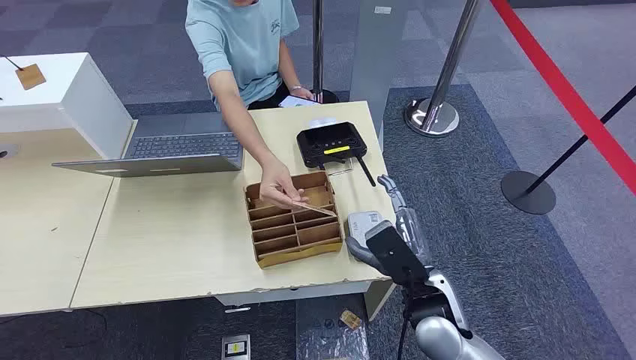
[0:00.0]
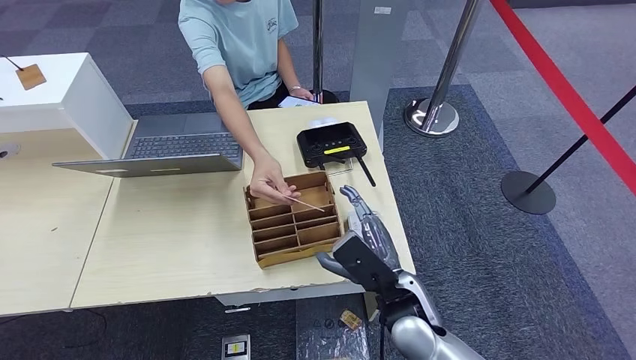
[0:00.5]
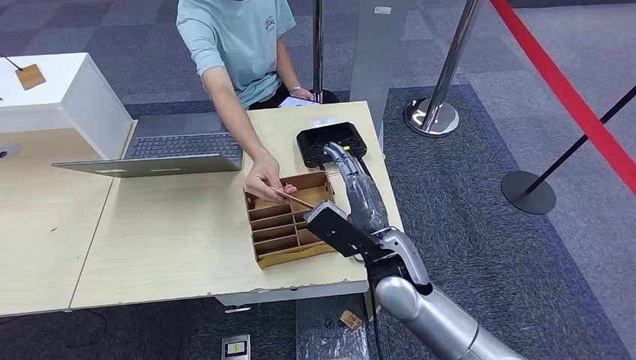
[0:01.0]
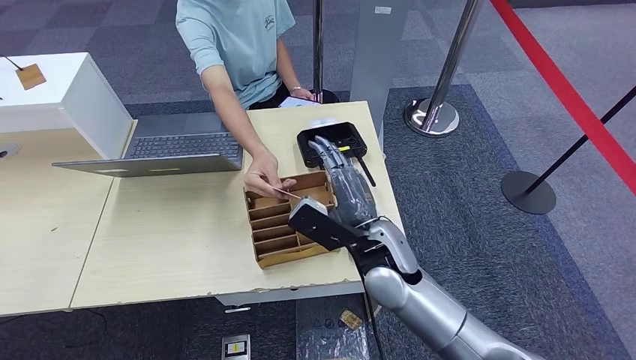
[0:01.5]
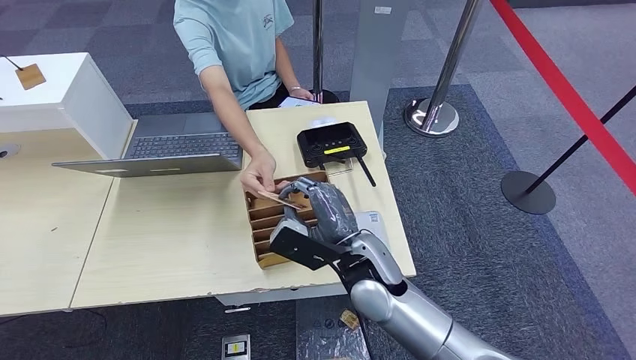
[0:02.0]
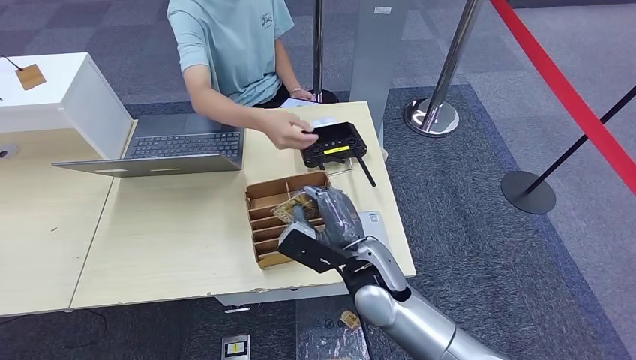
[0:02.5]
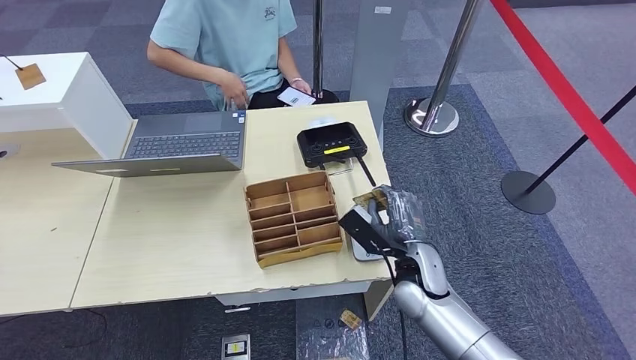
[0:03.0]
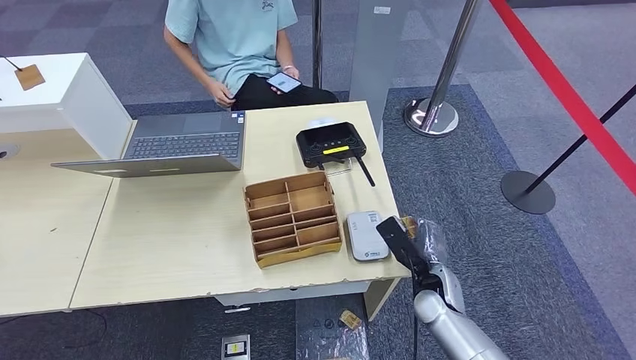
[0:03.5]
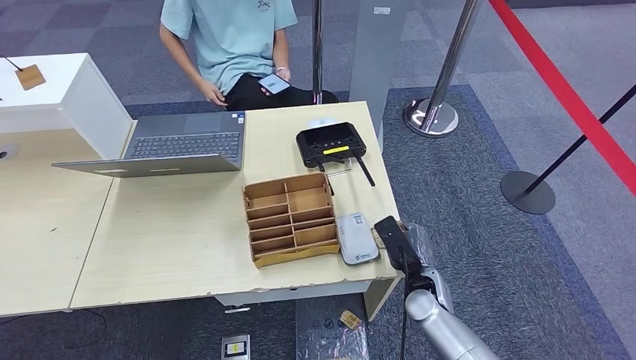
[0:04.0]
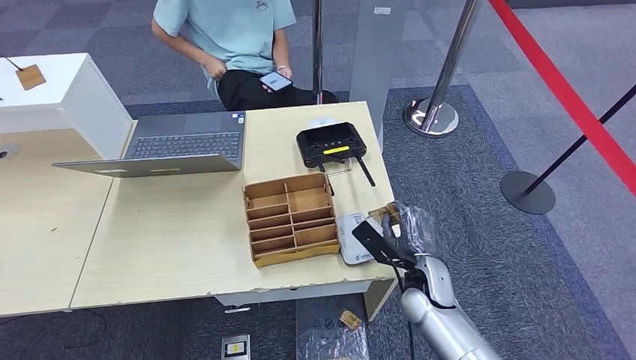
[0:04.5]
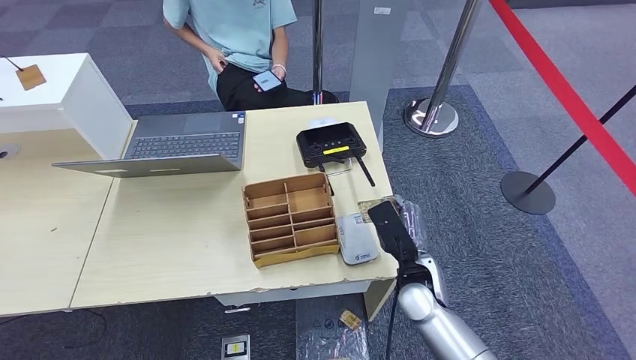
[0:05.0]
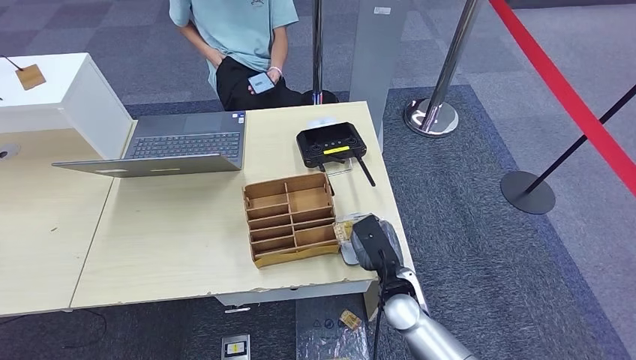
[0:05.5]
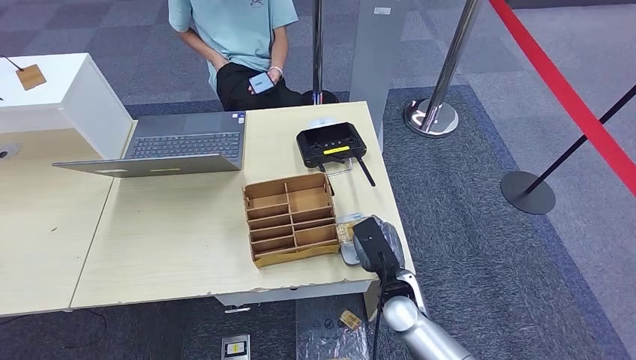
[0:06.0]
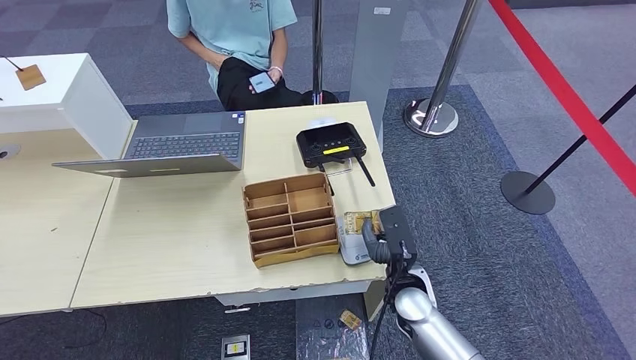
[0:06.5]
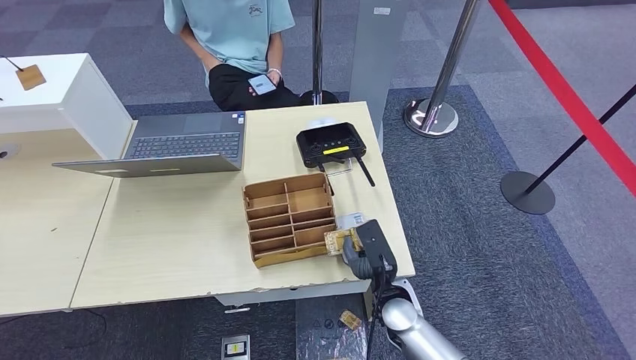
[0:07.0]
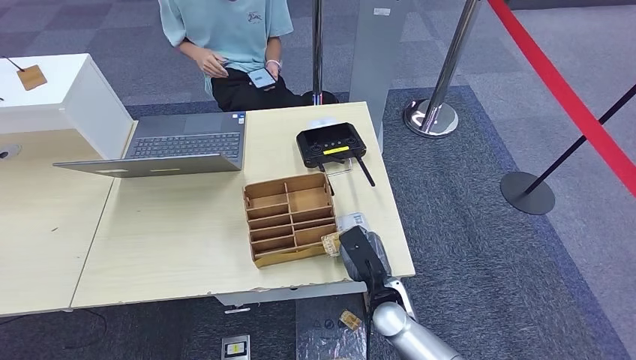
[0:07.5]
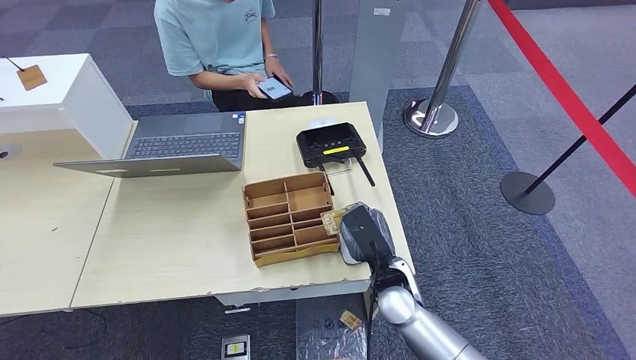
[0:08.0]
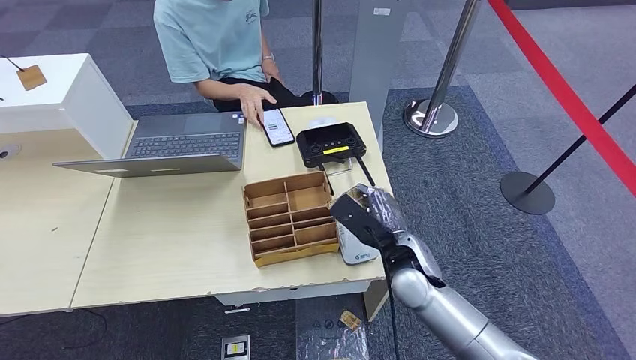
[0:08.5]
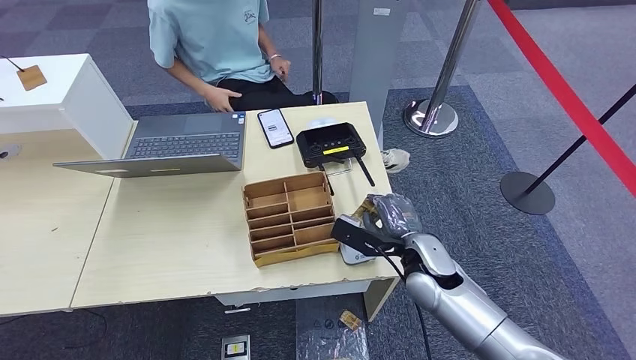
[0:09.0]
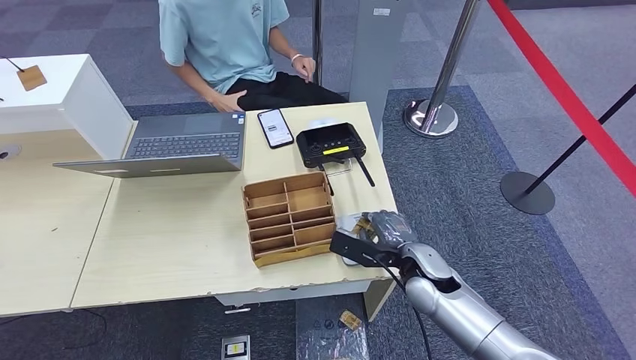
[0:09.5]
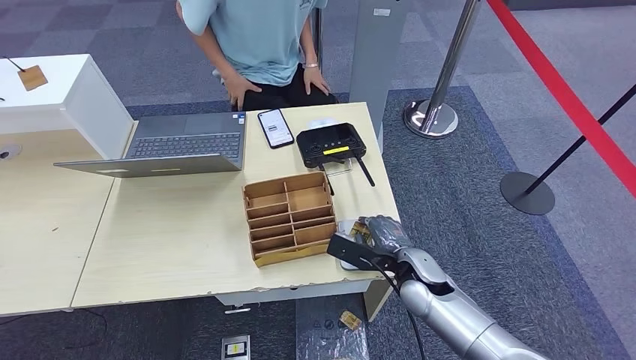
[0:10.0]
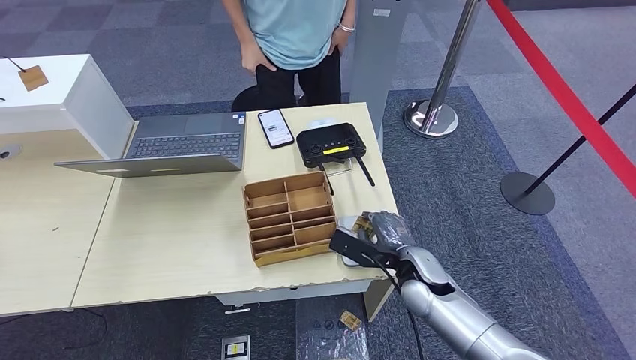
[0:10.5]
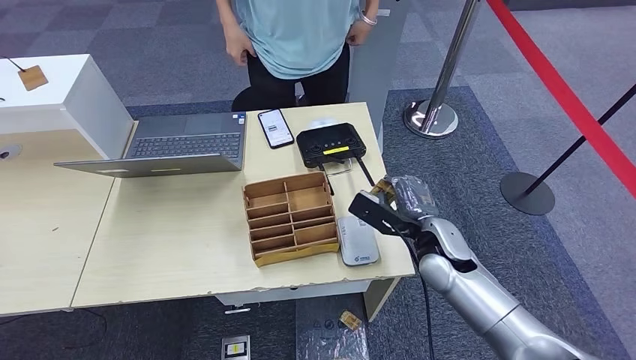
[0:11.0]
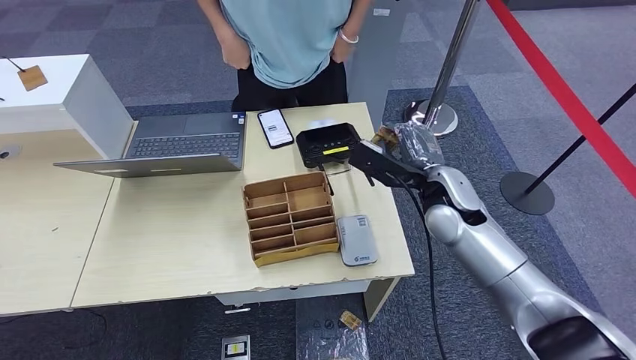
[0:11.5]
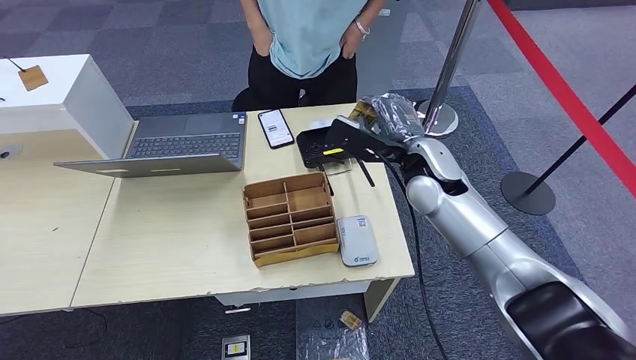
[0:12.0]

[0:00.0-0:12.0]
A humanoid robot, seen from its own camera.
Step, 0:00.0 to 0:02.5: Take the ID card from the person's hand.
Step, 0:03.0 to 0:10.0: Place the ID card on the card reader.
0:02.0 to 0:04.0: The right hand goes some 20 cm downward and to the right.
0:04.0 to 0:06.0: The right hand moves to the left, some 5 cm.
0:06.0 to 0:08.0: The hands move only a little.
0:08.0 to 0:10.0: The right hand shifts some 5 cm to the right.

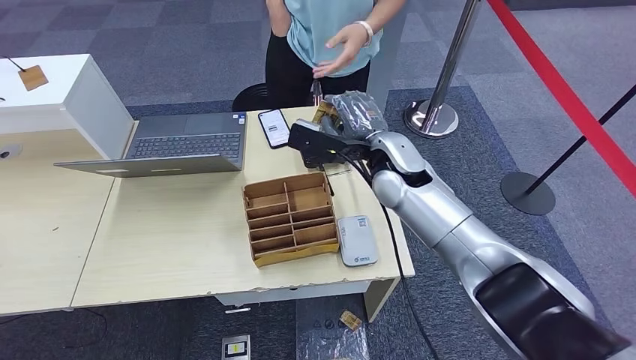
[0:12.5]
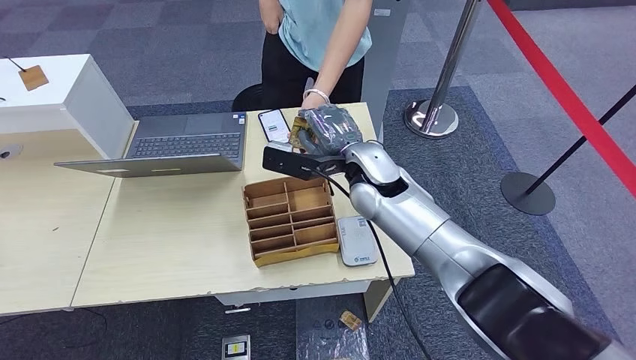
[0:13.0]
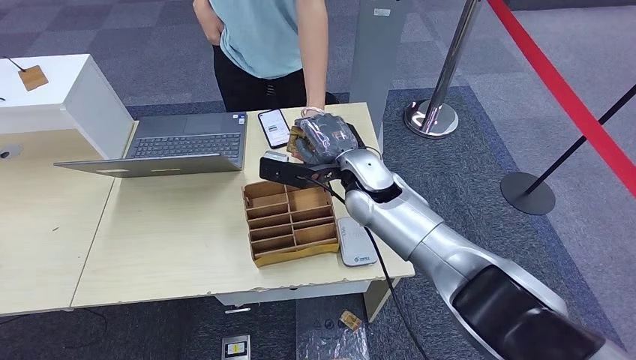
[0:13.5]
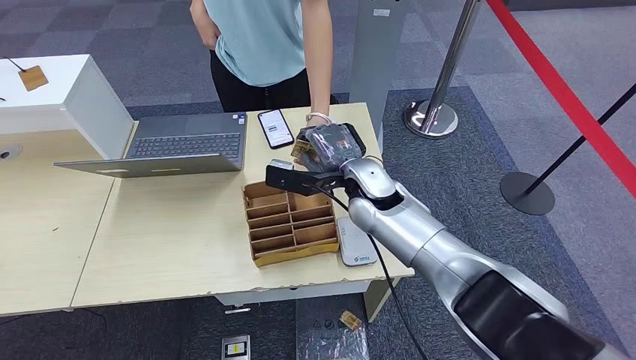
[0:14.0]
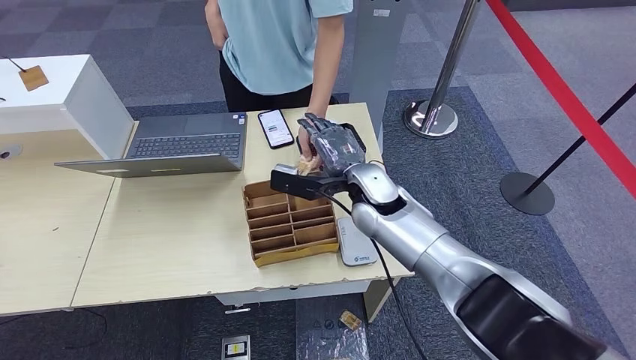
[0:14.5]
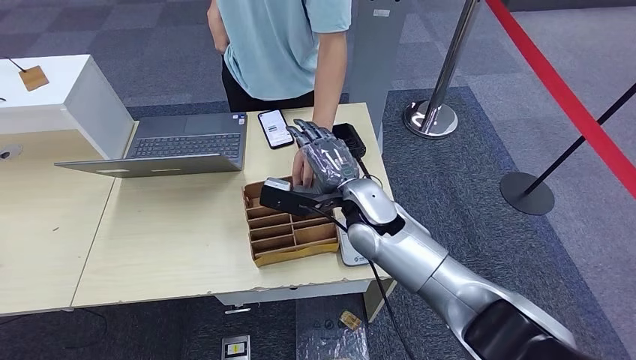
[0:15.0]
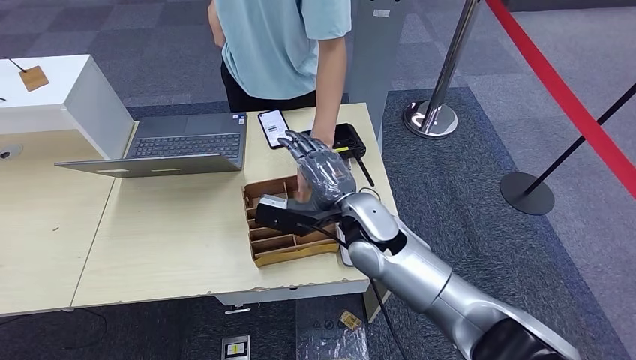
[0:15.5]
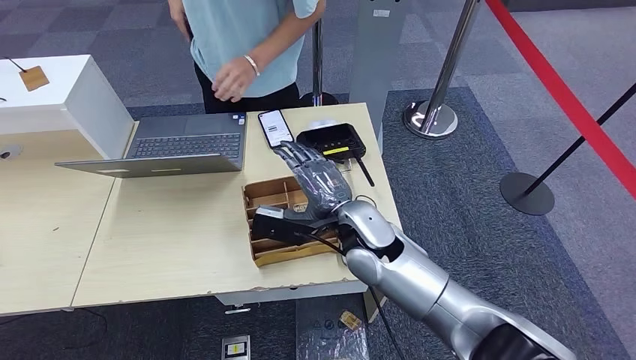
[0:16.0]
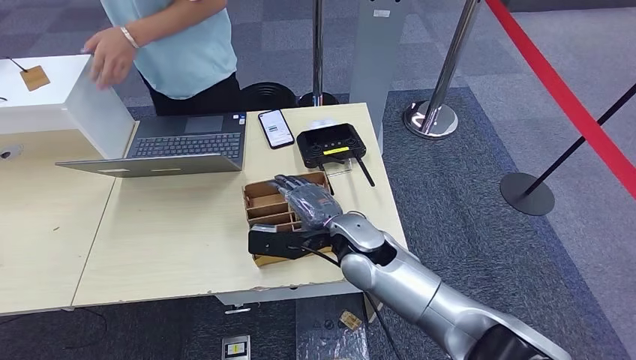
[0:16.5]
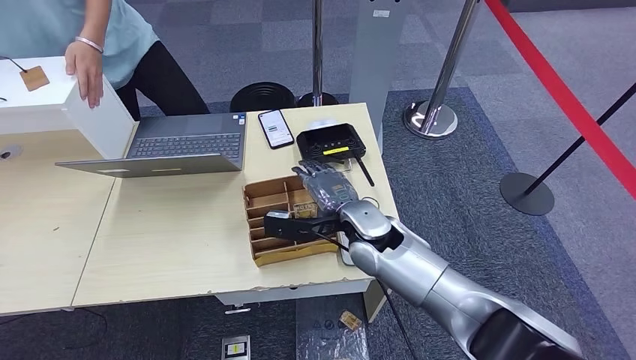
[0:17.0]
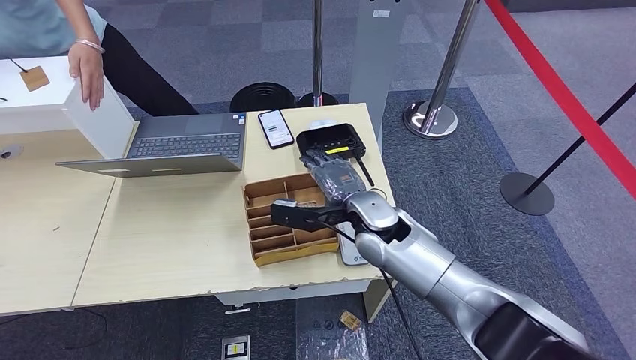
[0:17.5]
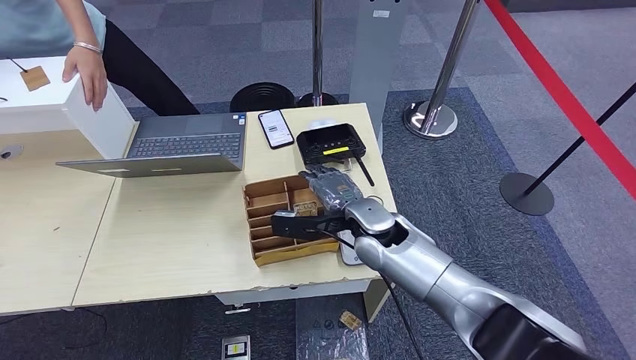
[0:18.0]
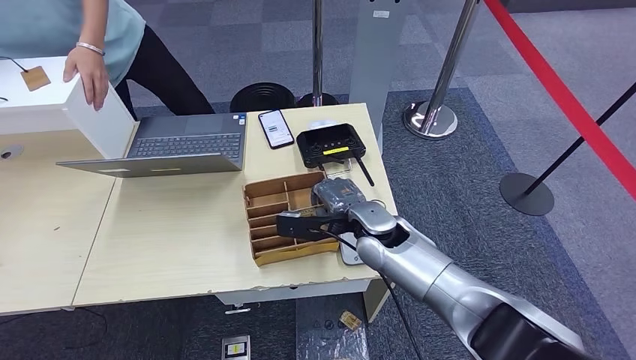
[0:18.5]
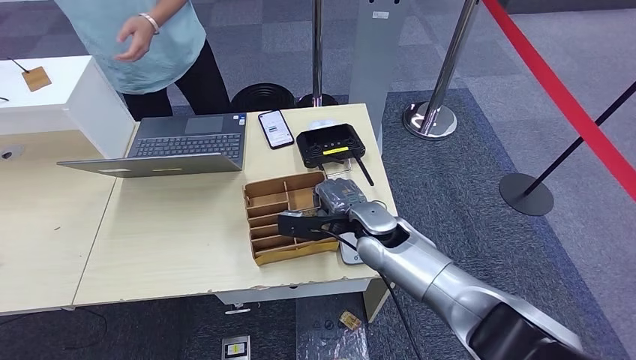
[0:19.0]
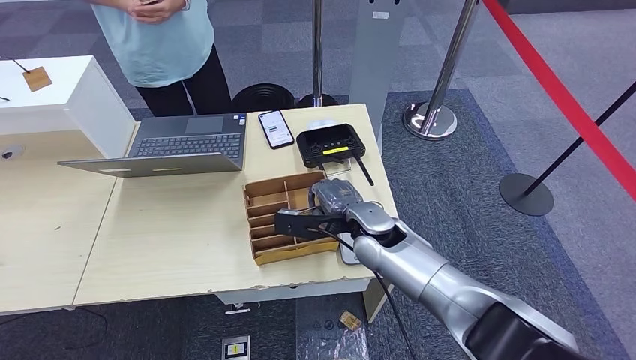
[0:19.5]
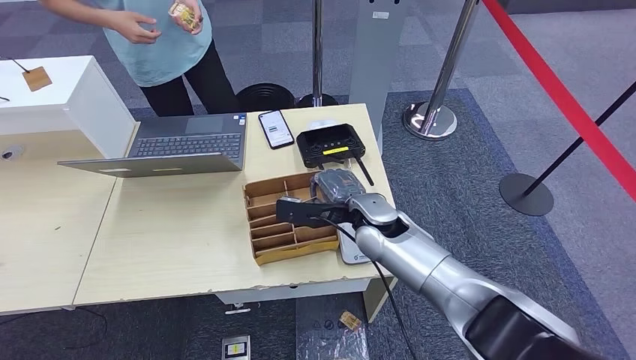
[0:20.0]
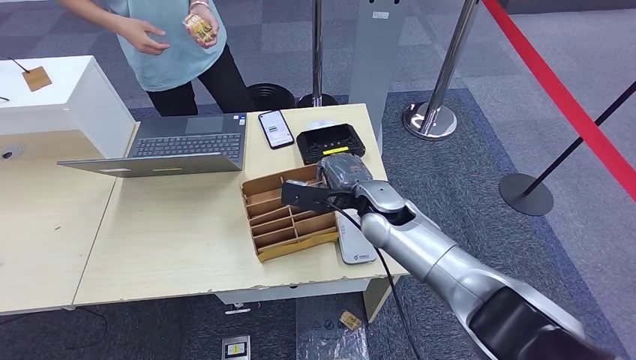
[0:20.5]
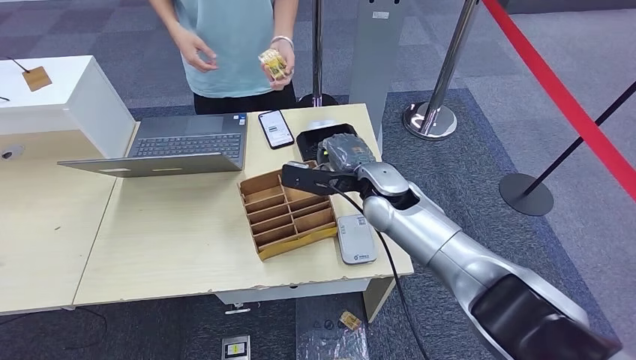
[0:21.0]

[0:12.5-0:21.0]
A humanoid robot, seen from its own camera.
Step, 0:12.5 to 0:16.0: Hand the ID card to the person.
Step, 0:16.5 to 0:20.5: Pick up the room key from the key card box.
0:12.5 to 0:14.5: The right hand travels downward by about 5 cm.
0:16.5 to 0:19.0: The right hand shifts by roughly 5 cm.
